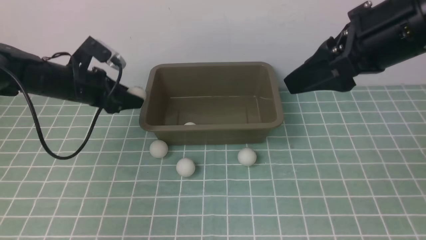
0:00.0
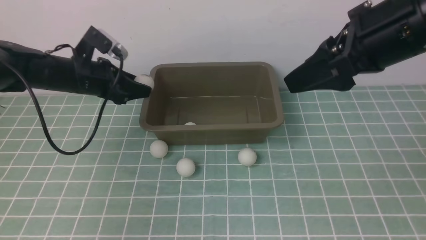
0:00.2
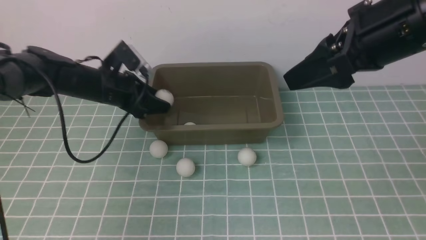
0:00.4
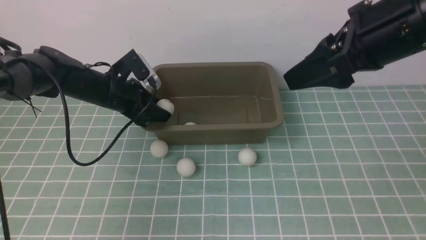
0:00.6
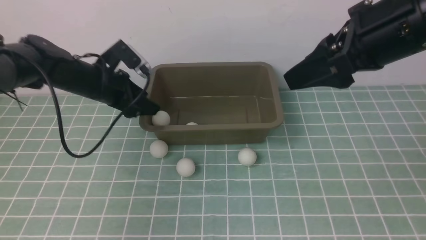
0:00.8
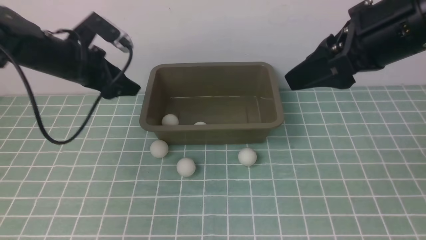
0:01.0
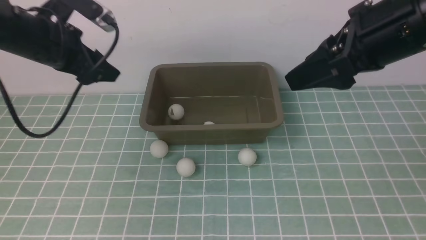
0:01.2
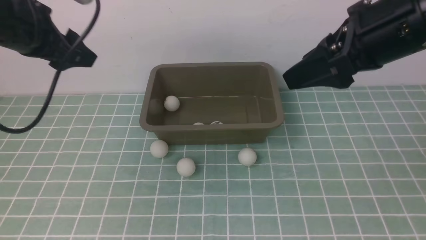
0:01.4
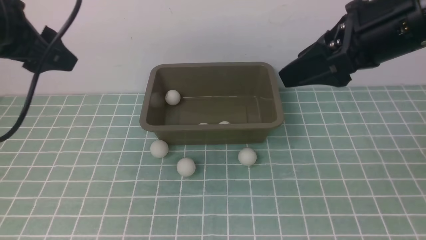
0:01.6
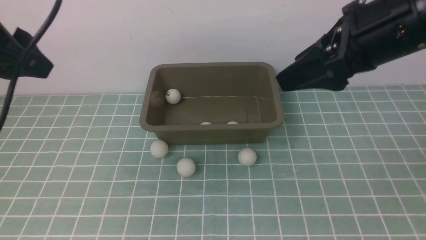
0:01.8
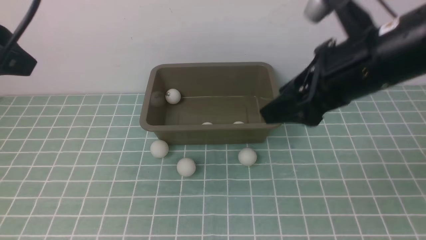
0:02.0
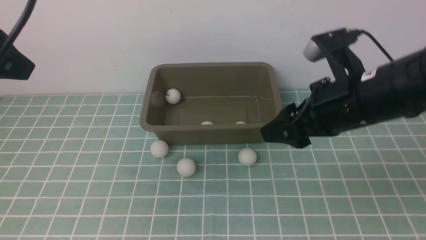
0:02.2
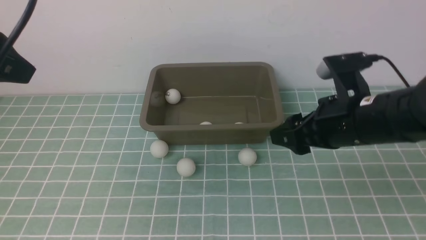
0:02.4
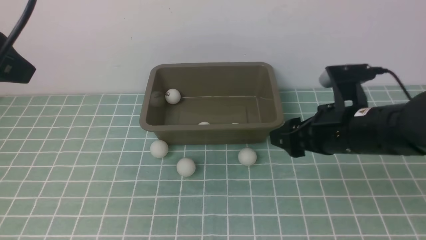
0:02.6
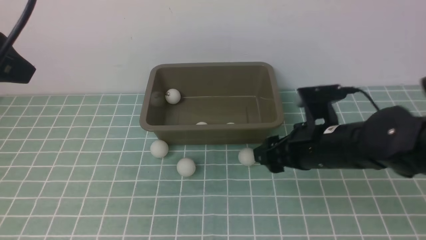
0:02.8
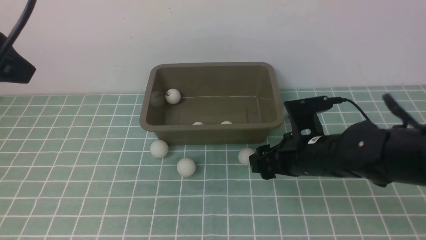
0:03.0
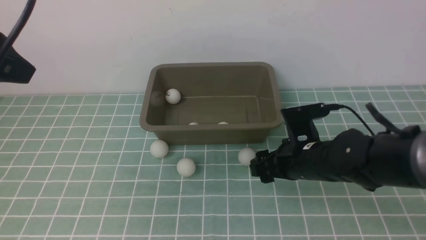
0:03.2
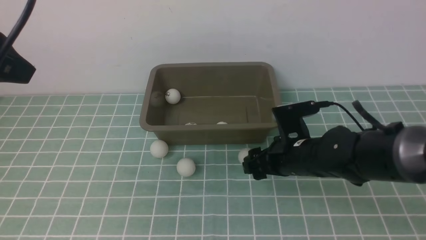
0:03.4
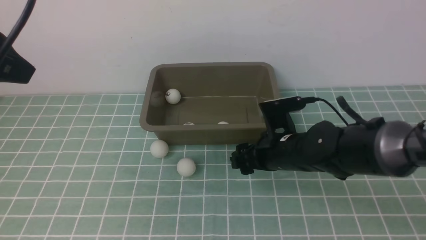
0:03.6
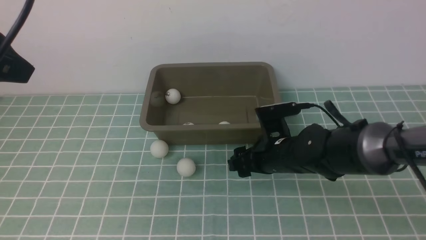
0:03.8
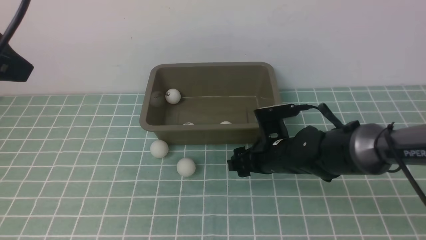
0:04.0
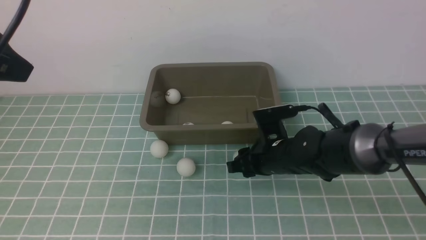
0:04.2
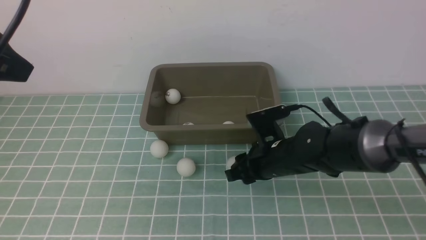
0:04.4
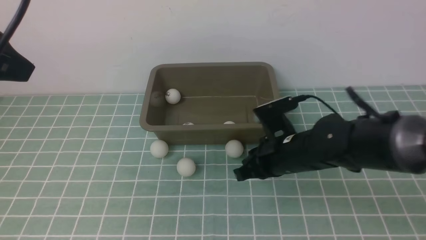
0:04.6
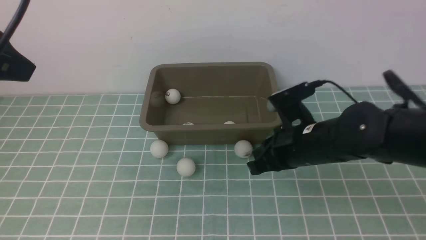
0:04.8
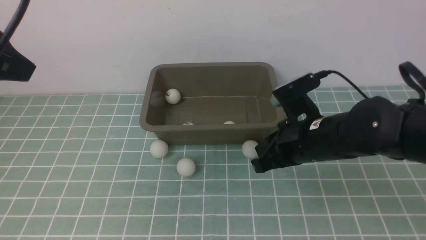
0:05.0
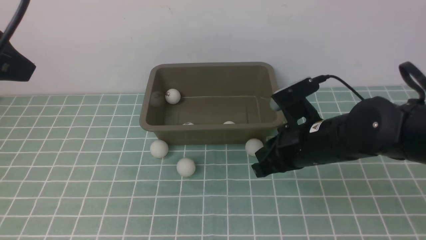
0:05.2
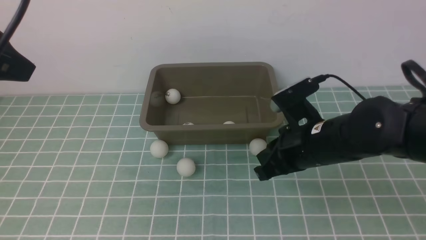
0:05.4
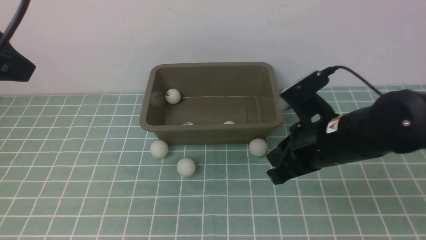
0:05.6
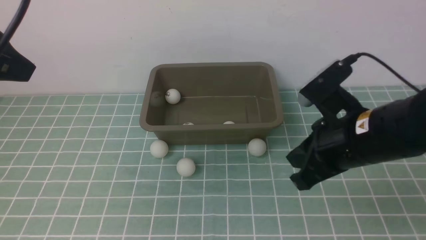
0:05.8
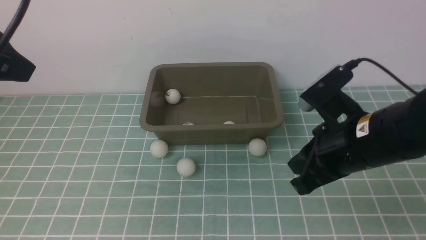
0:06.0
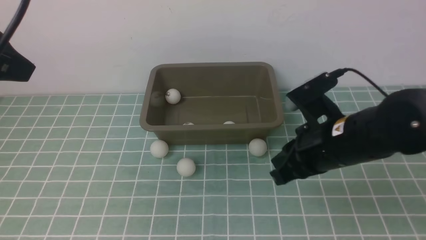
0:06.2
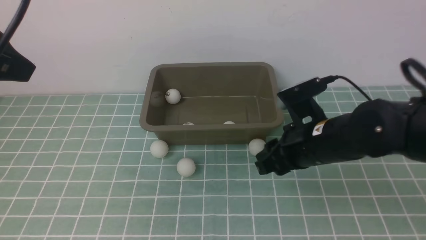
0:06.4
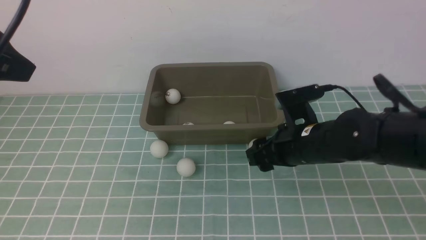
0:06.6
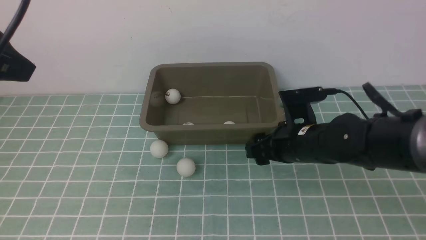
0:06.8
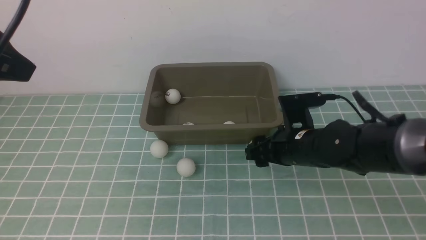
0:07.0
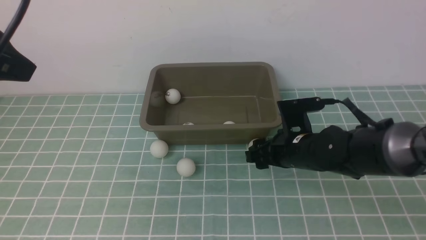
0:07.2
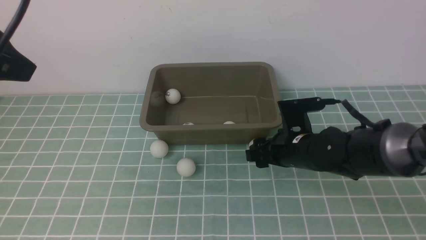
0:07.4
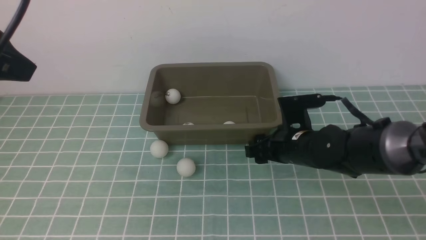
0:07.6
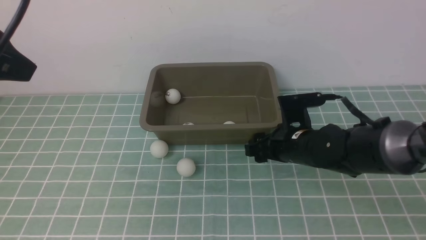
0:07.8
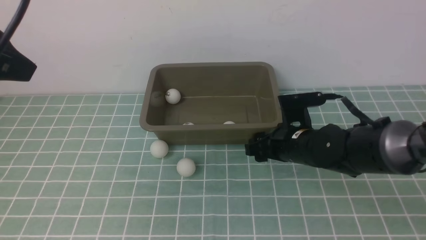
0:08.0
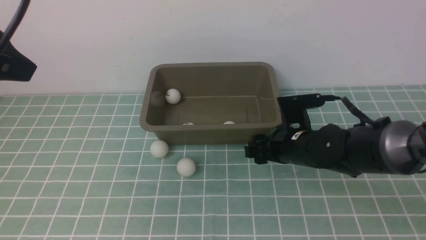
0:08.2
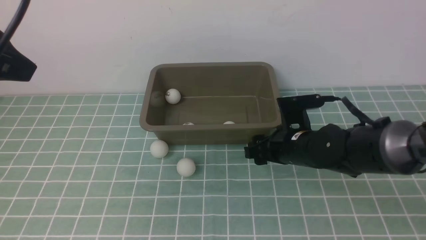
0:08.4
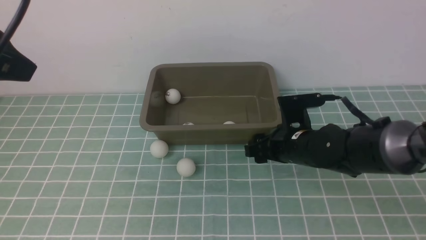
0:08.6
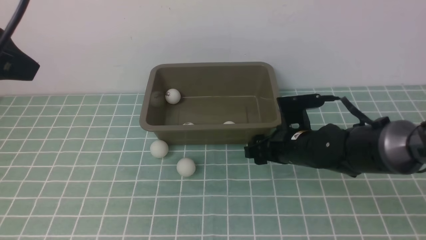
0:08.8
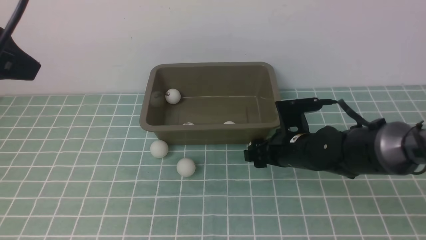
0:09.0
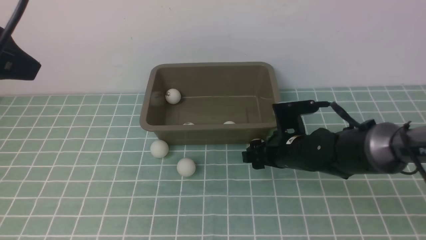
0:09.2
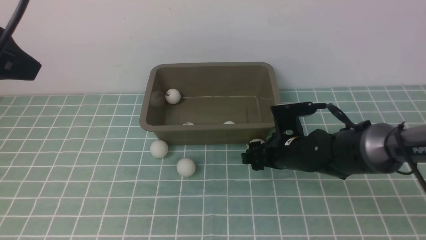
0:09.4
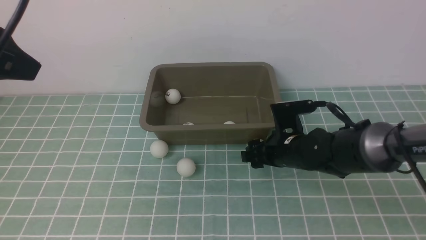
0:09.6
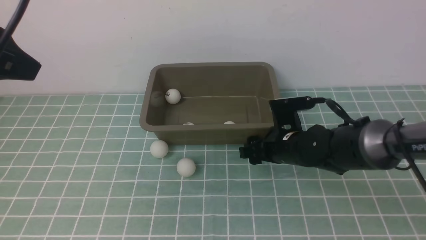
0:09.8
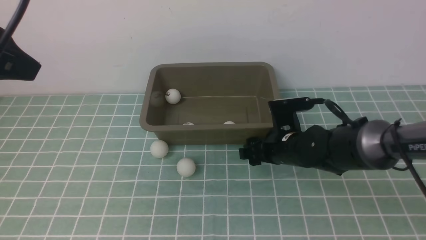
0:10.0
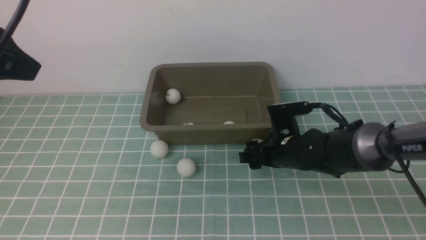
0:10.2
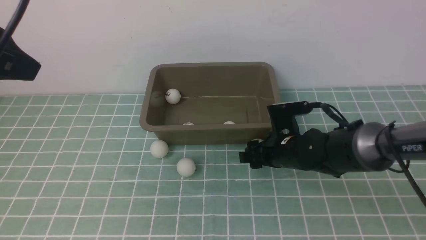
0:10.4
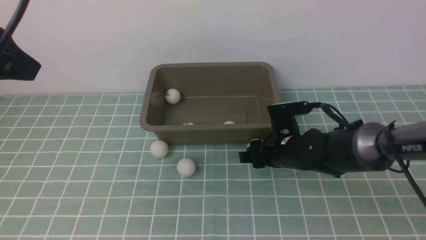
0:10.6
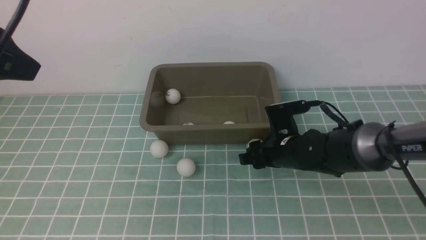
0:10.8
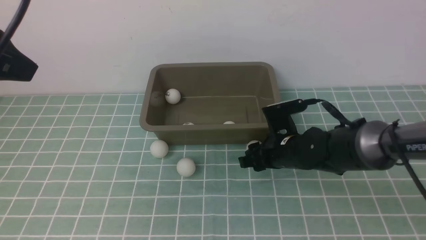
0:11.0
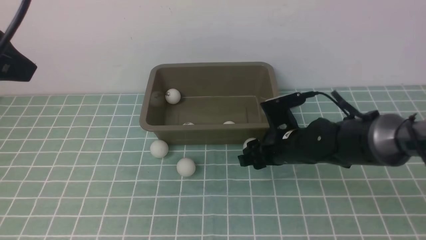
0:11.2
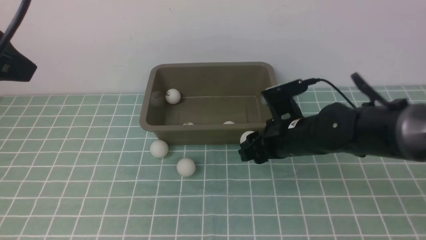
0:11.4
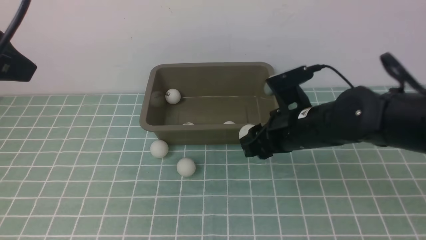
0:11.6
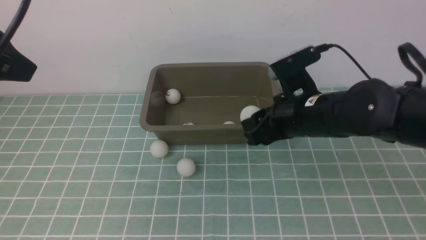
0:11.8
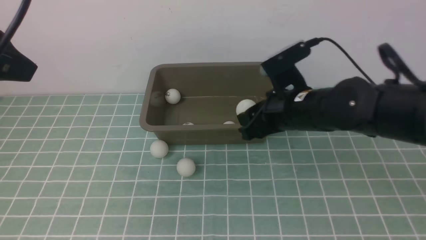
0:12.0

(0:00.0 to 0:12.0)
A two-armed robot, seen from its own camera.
Step, 0:00.0 - 0:00.8: use the left arm to put the table tennis ball into the box.
Step, 0:01.2 - 0:11.2: use the right arm to clamp the table tennis ball closest to it.
0:00.0 - 0:01.6: The left gripper is displaced upward and backward by about 30 cm, and opens, then closes again. Meanwhile the right gripper travels downward by some 5 cm.
0:01.6 - 0:03.0: The right gripper is displaced downward by some 15 cm.
0:03.0 - 0:04.4: The right gripper closes.
0:04.4 - 0:06.0: The right gripper moves upward, backward and to the right, approximately 15 cm, and closes up.
0:06.0 - 0:07.6: The right gripper heads downward and forward, covering roughly 15 cm, and opens up.
0:07.6 - 0:10.4: The grippers stay close to where they were, moving slightly.
0:10.4 - 0:12.0: The right gripper heads upward, covering roughly 10 cm.

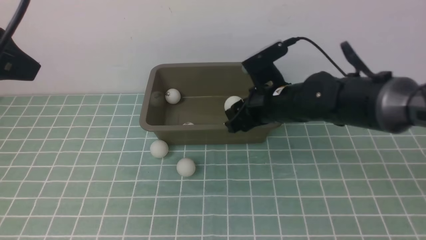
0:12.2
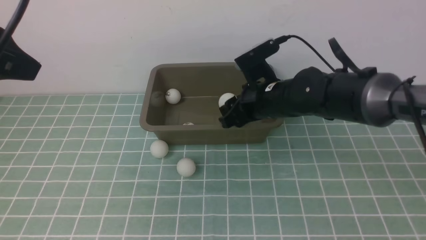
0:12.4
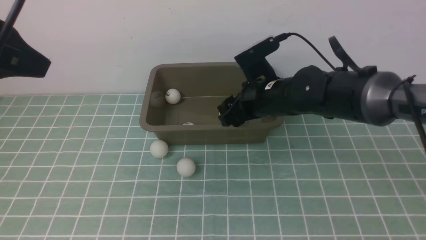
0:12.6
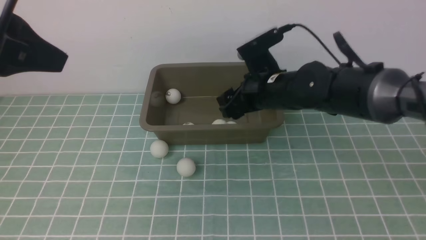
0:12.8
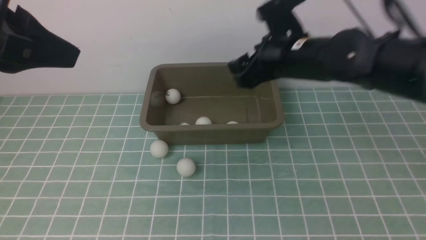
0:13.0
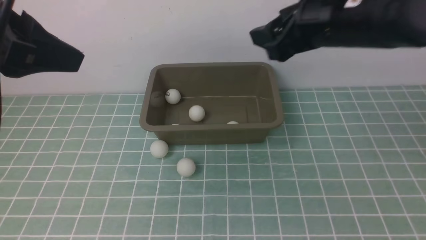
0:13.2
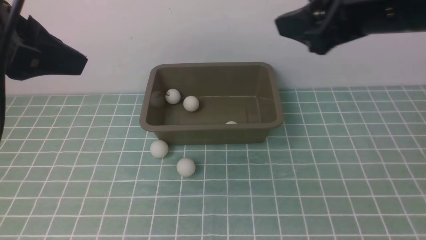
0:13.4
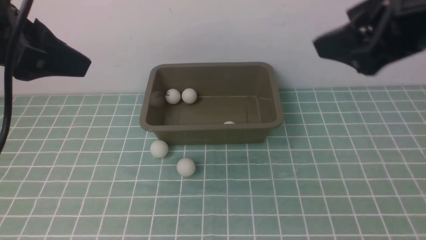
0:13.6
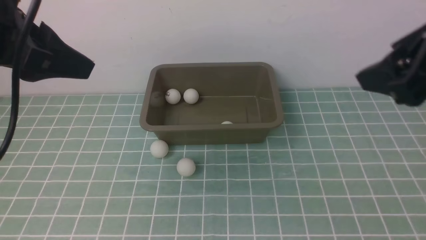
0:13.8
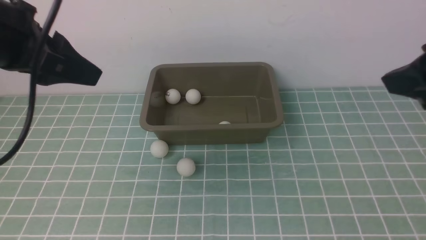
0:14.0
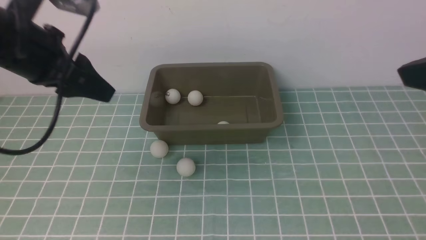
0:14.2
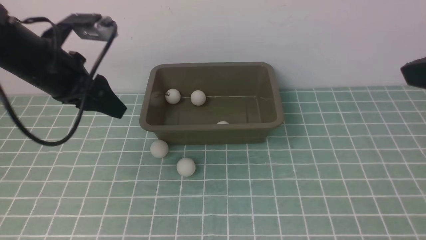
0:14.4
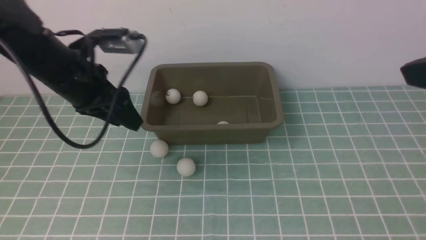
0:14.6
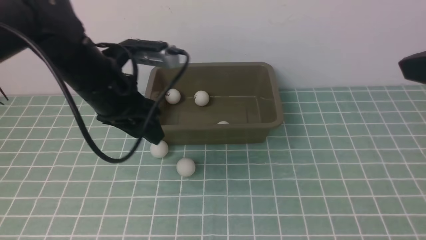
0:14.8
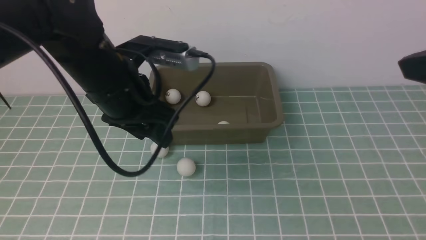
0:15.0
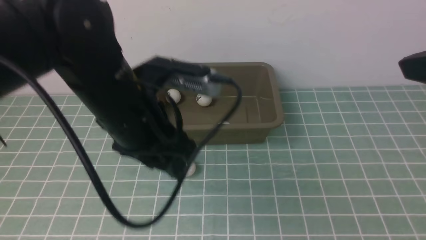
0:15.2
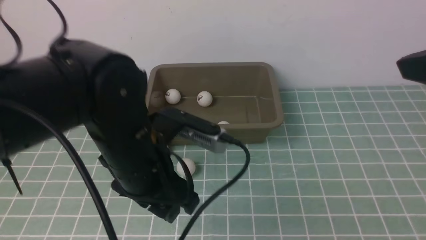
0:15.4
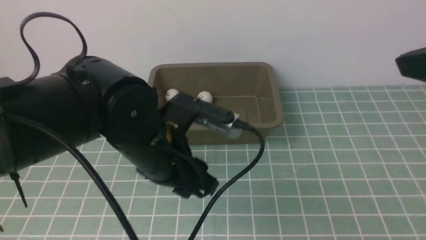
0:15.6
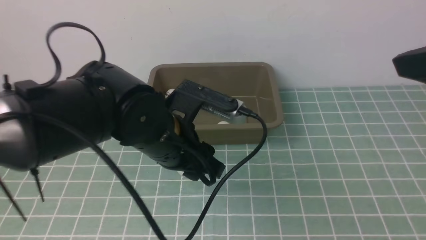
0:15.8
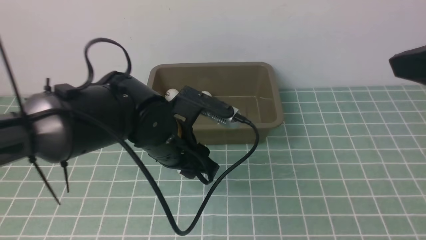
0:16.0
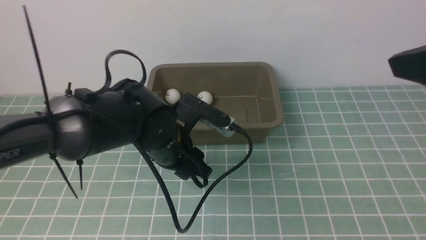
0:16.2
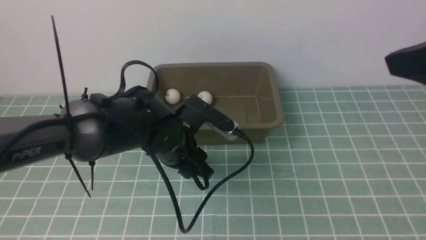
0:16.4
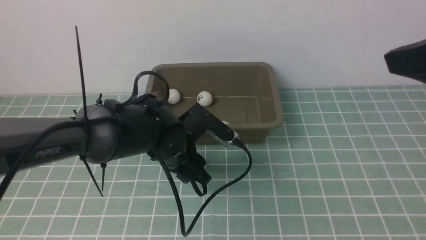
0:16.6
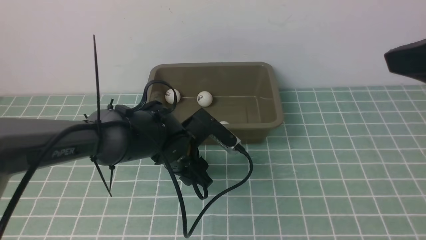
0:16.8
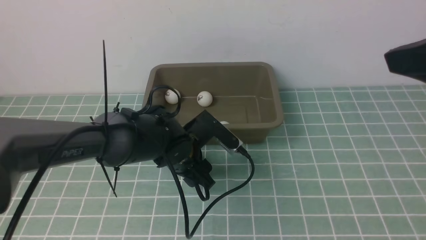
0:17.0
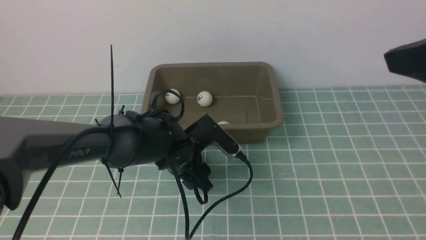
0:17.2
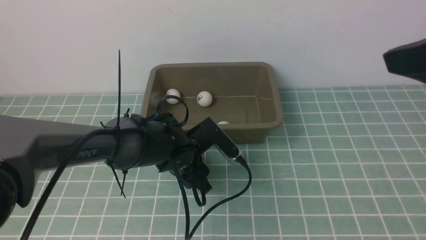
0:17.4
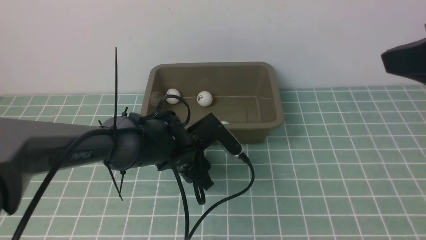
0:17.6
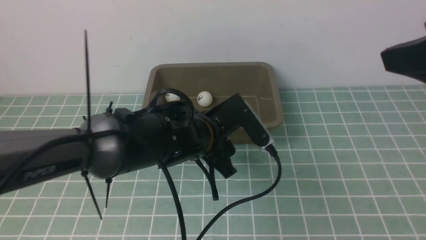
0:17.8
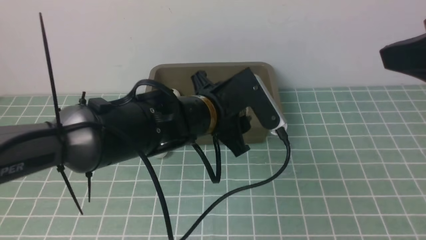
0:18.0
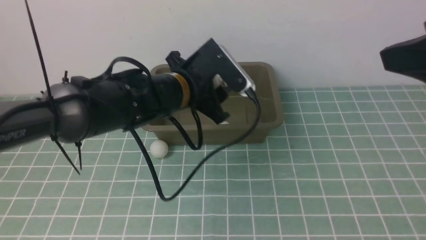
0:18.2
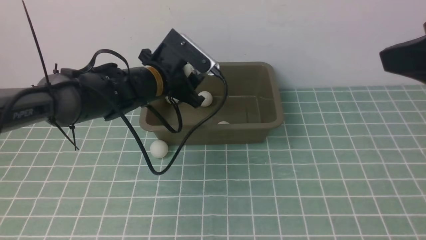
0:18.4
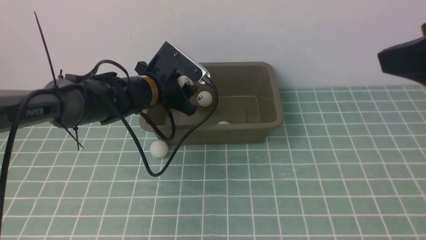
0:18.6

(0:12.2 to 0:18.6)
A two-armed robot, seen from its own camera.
Step, 0:13.0 - 0:17.8: use the left arm to clamp the table tennis ball closest to it.
0:12.2 - 0:13.8: The right gripper shifts roughly 30 cm upward, backward and to the right.
0:13.8 - 0:15.4: The left gripper is displaced to the right and downward by some 20 cm.
0:15.4 - 0:17.0: The left gripper goes about 15 cm downward and forward.
0:17.0 - 0:18.6: The left gripper travels forward and upward by some 10 cm.
